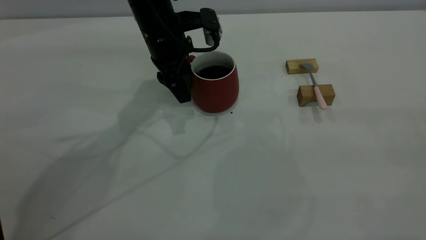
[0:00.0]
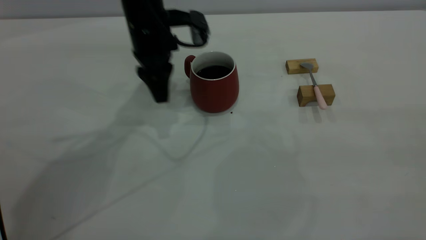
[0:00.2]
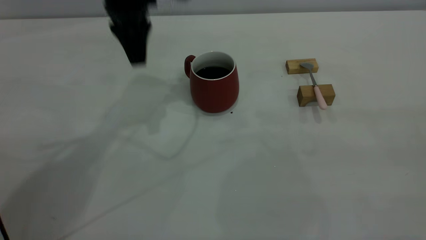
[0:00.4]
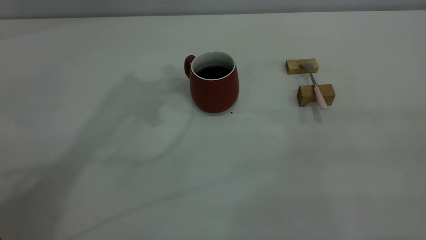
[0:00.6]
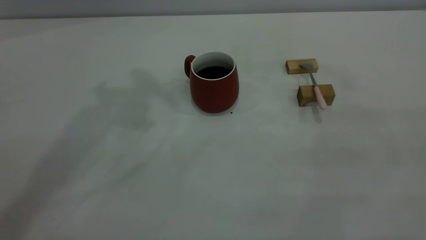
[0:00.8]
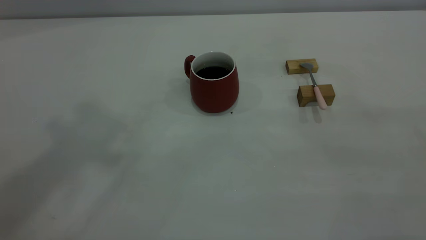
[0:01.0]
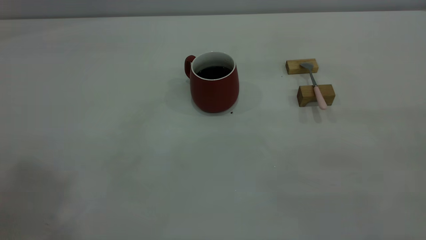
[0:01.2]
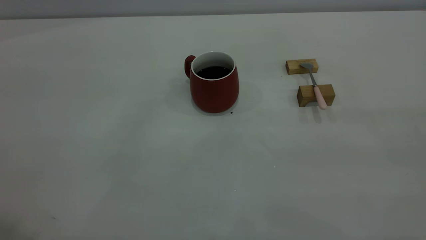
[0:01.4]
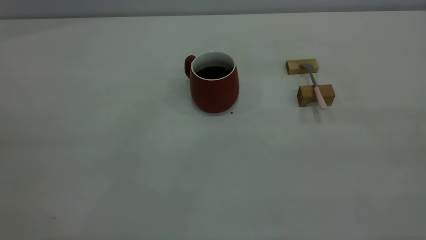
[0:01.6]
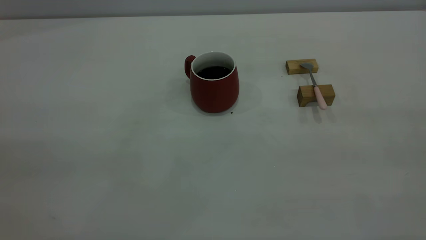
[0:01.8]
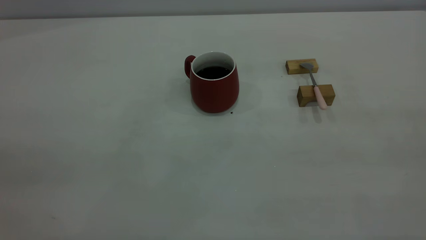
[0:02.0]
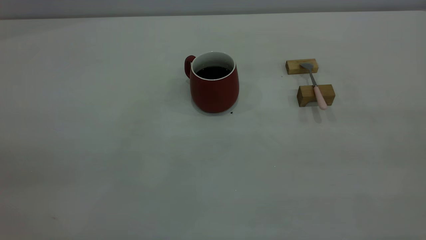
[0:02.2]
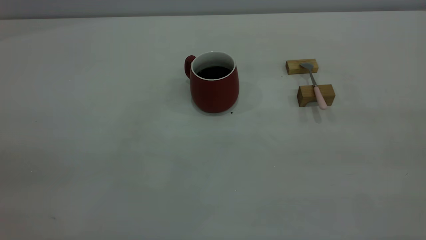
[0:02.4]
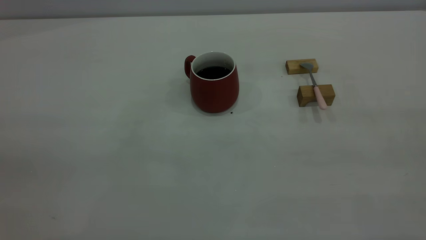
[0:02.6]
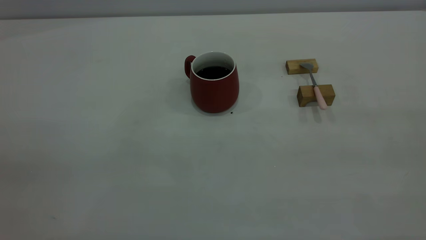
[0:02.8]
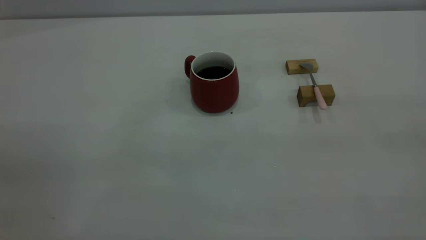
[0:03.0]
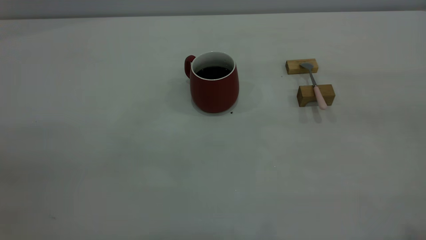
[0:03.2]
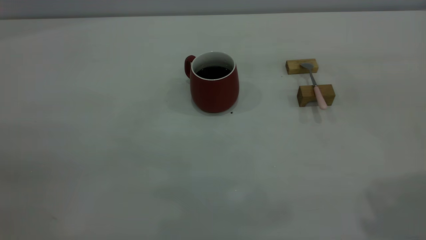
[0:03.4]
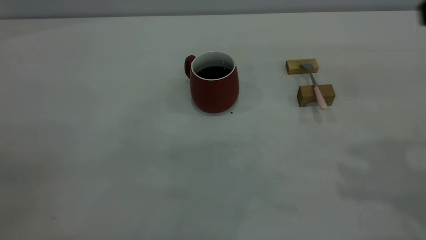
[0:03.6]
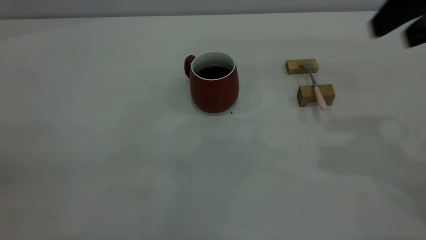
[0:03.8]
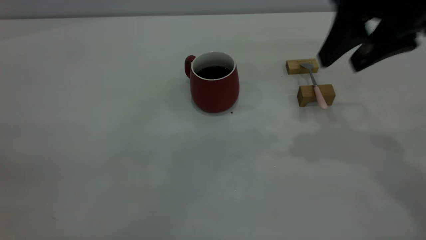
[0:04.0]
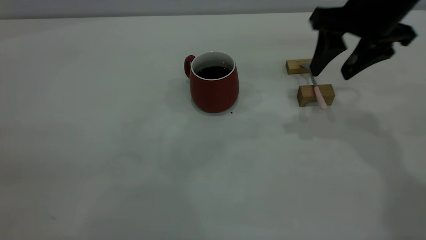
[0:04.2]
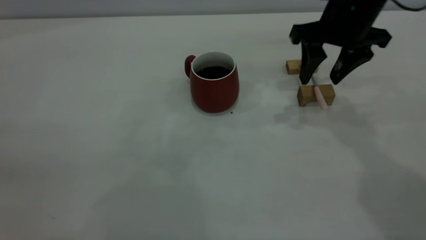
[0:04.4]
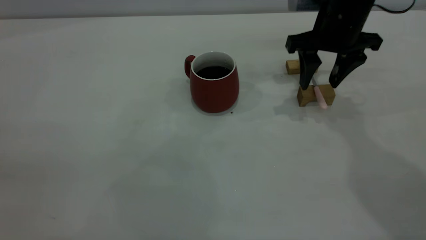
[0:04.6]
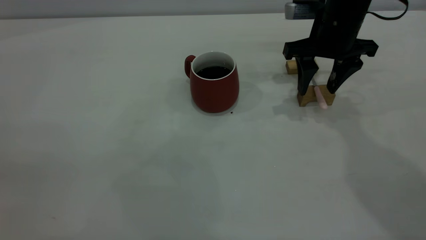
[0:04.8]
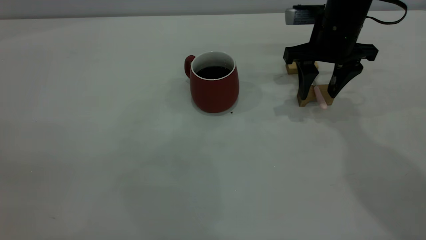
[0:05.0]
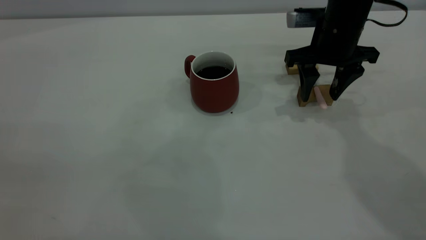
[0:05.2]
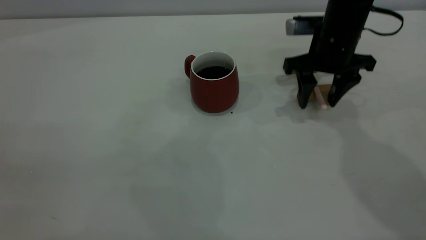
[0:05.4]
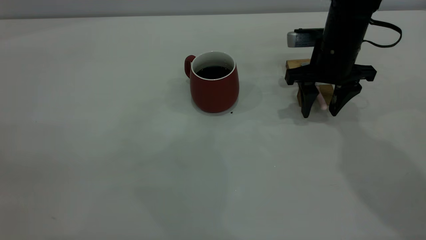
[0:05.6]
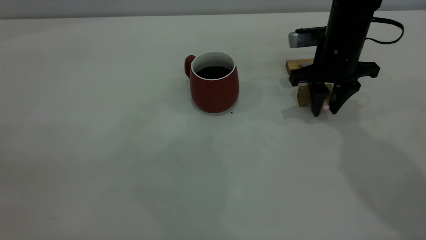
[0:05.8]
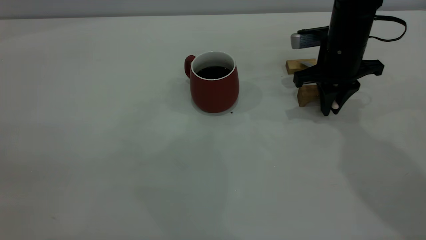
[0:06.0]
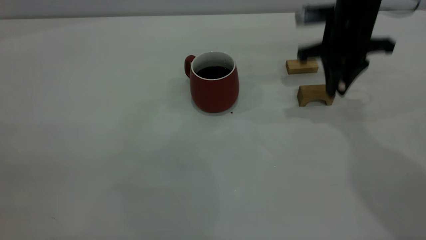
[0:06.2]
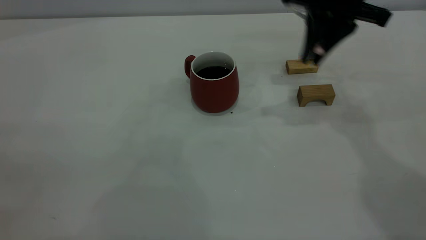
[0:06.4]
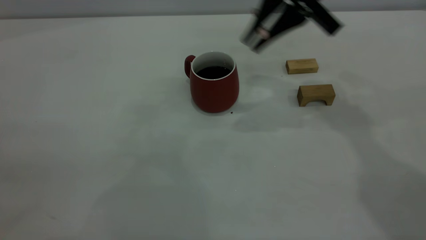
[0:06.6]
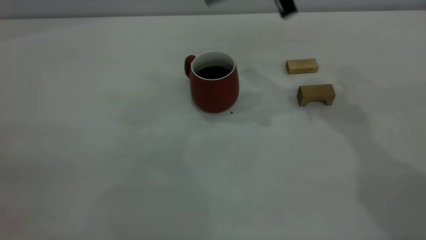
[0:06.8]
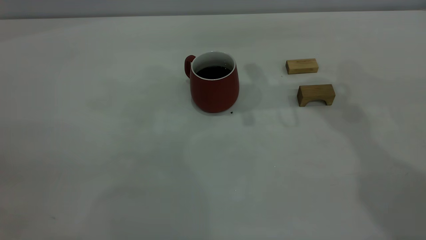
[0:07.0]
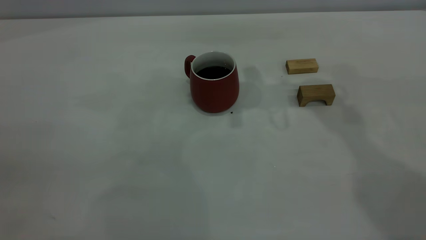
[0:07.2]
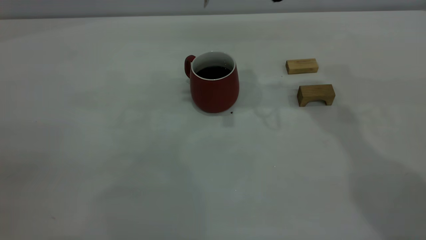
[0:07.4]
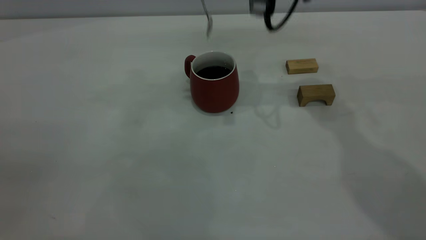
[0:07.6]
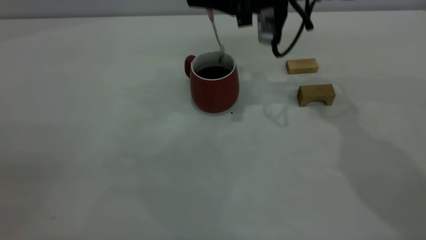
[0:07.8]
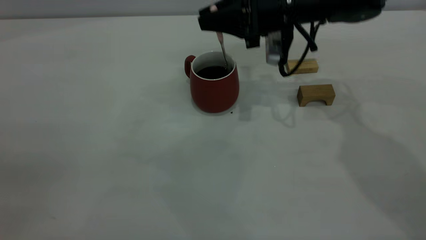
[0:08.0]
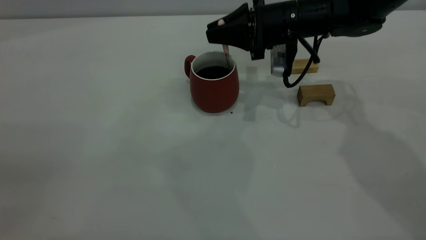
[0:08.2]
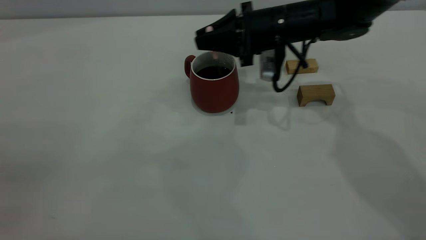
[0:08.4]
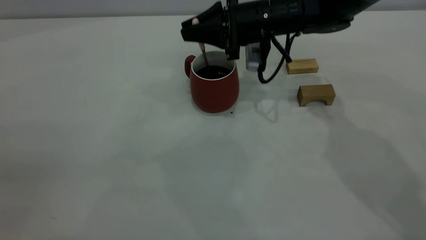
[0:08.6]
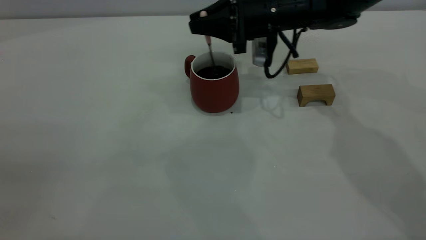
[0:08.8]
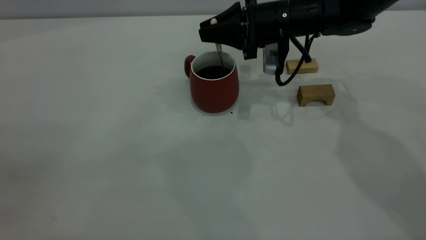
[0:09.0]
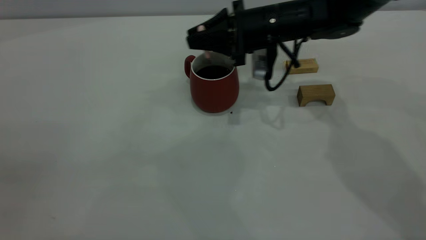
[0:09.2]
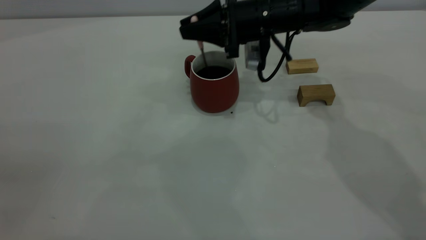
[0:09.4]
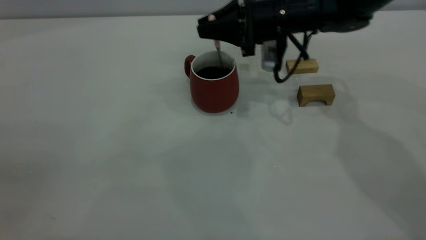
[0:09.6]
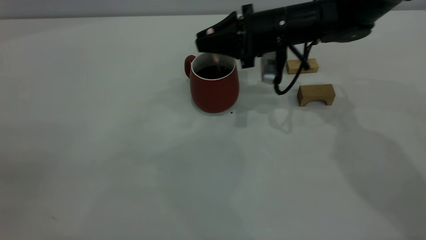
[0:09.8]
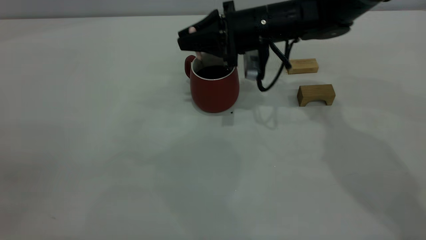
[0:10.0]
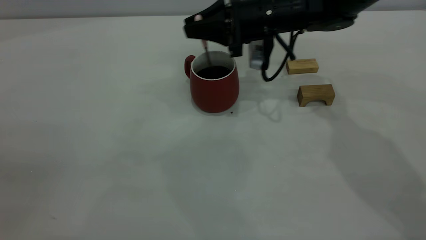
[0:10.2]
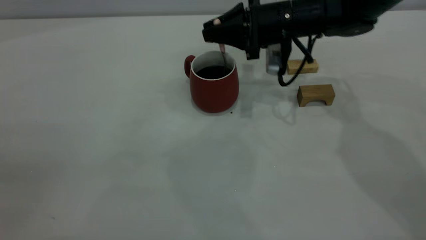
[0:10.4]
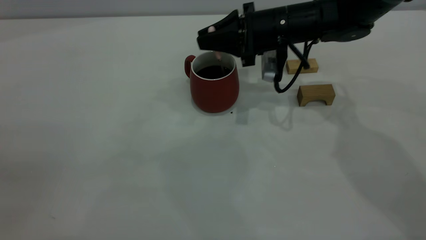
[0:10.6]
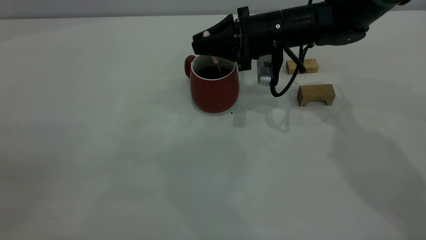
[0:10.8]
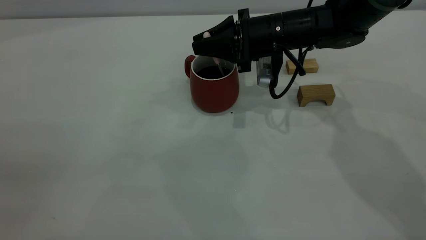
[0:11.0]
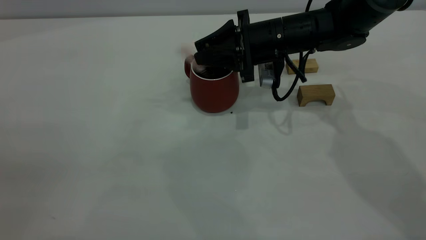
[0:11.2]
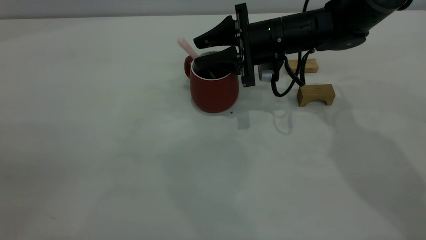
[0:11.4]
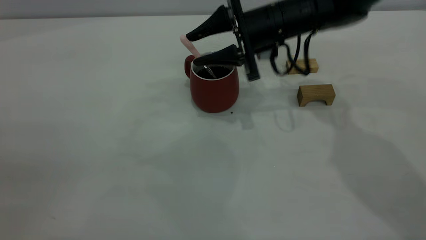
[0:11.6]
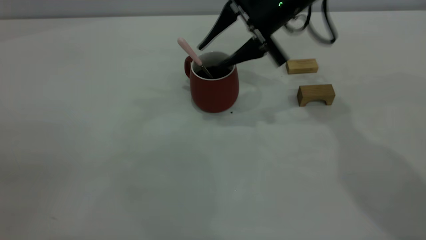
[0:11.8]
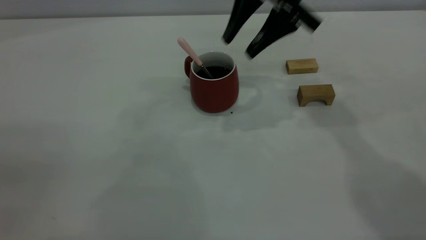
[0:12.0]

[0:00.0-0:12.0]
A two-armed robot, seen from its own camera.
Step, 0.6 to 6.0 s: Pick up the spoon.
Step, 6.4 to 12.0 s: Stir the coffee in the cup.
0.0 to 1.6 s: The left gripper heads backward, upward and to the left, covering about 50 cm.
3.0 to 4.4 s: The right gripper shifts approximately 40 cm forward and downward, and opens up.
4.4 to 6.0 s: The right gripper goes roughly 5 cm downward, and closes up.
6.0 to 7.6 s: The right gripper is displaced upward and to the left by roughly 15 cm.
7.6 to 9.0 s: The right gripper shifts about 10 cm downward.
9.0 to 10.4 s: The grippers move only a little.
10.4 to 12.0 s: The right gripper moves upward, about 15 cm, and opens up.

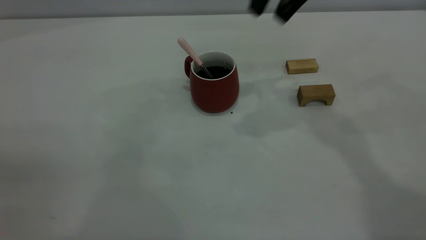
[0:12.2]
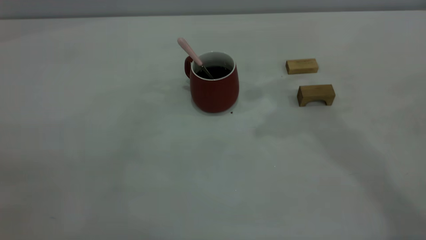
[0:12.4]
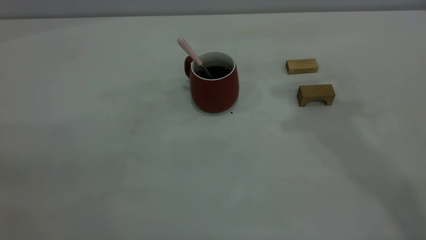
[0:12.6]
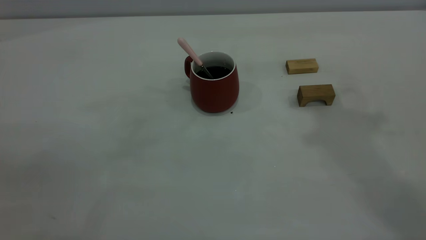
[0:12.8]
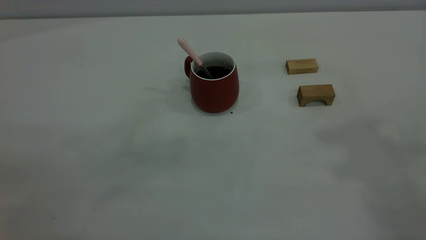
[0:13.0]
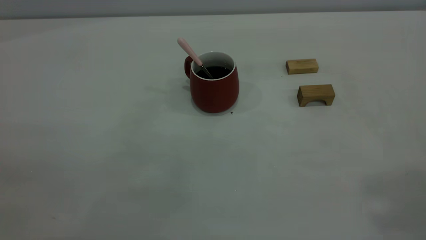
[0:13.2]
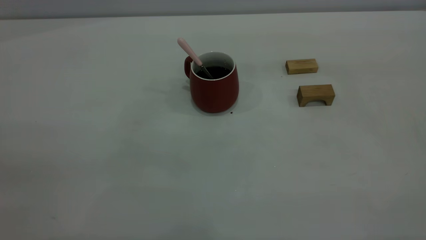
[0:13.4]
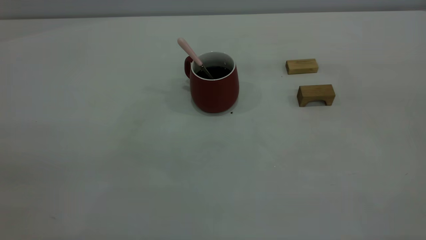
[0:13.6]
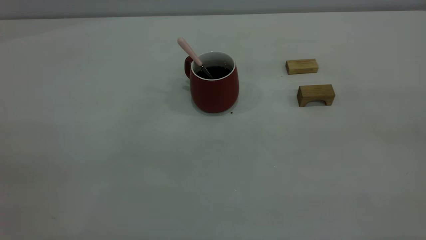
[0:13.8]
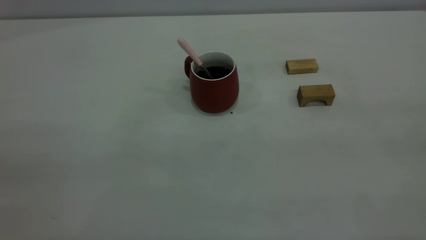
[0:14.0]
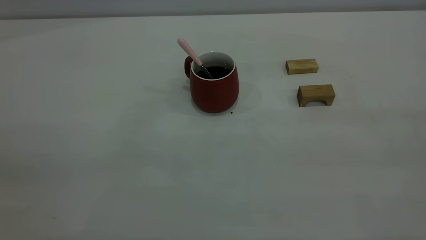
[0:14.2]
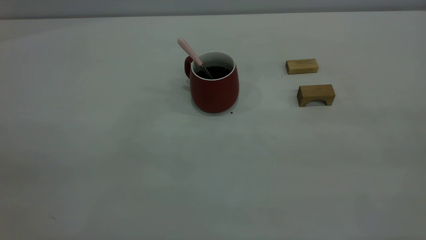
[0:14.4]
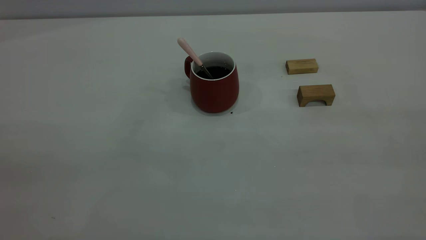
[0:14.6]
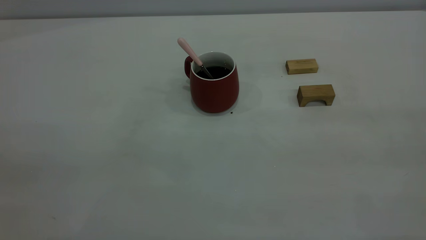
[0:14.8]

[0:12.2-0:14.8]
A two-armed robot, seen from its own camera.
12.2 to 13.4 s: The right gripper is displaced backward, upward and to the right by about 40 cm, and closes.

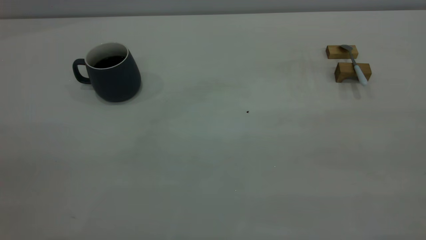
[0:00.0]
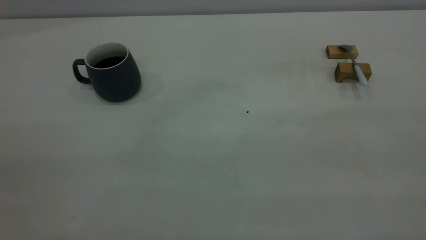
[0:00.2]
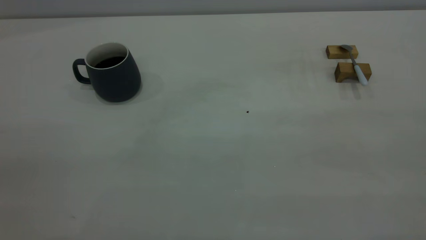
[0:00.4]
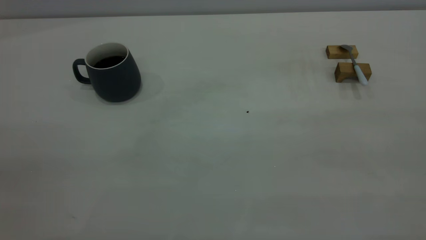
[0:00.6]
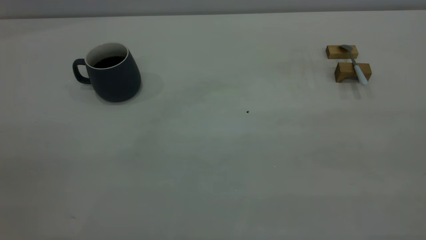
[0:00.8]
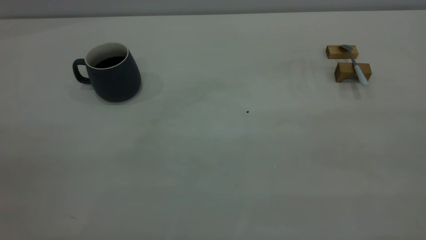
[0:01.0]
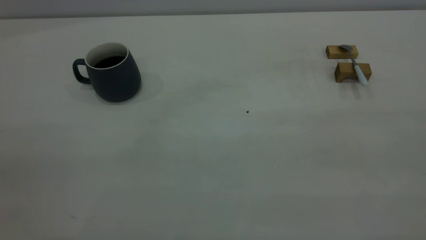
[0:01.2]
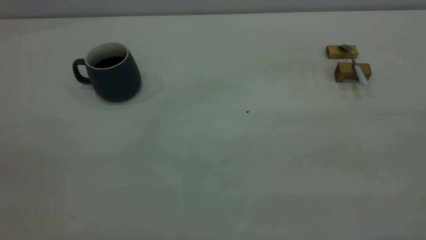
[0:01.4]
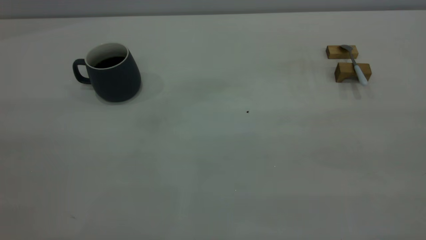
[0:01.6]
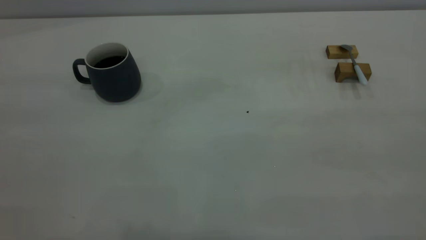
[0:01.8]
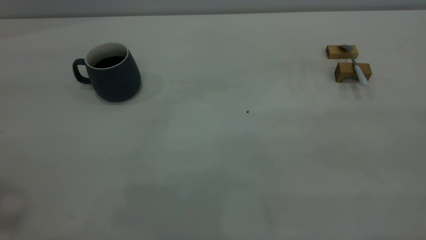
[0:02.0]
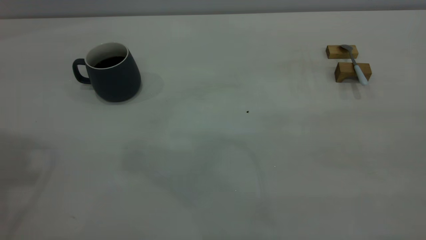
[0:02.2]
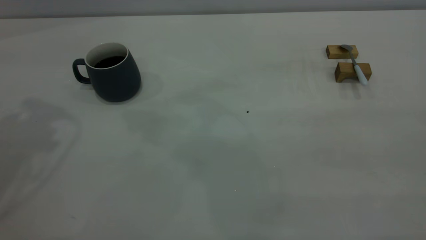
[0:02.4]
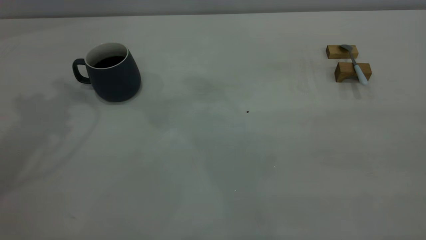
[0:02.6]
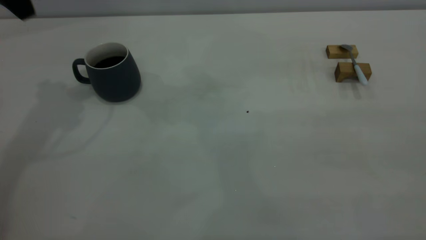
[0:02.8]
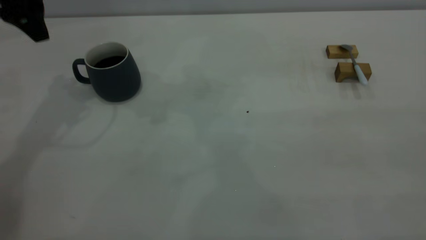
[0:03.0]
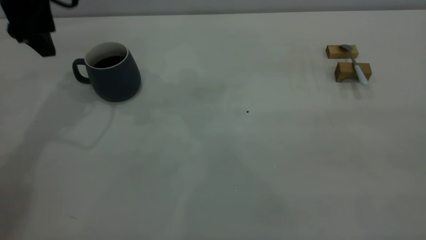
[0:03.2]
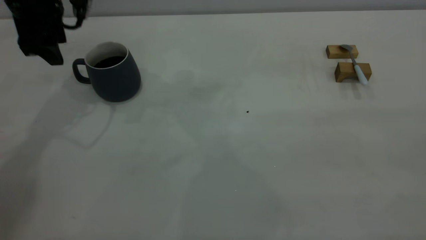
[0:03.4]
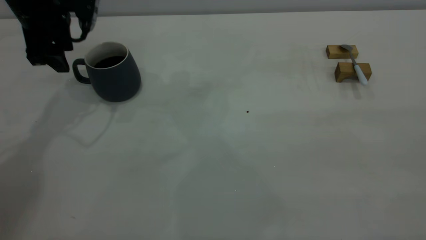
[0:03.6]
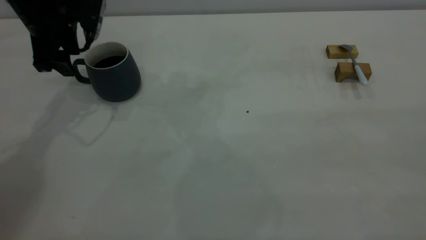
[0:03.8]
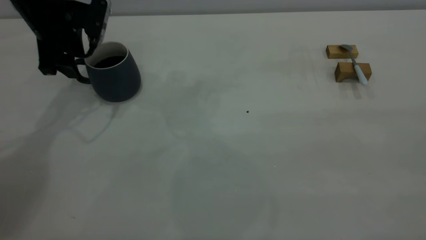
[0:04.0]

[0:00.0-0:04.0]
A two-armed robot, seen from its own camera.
2.6 to 4.0 s: The left gripper shifts approximately 20 cm downward and forward.
